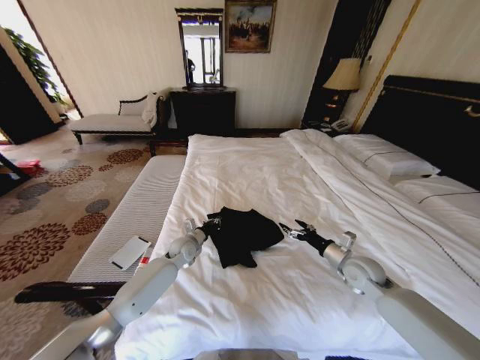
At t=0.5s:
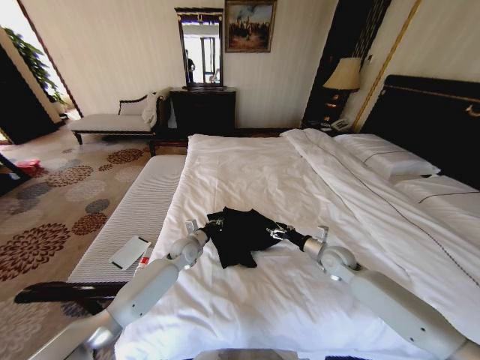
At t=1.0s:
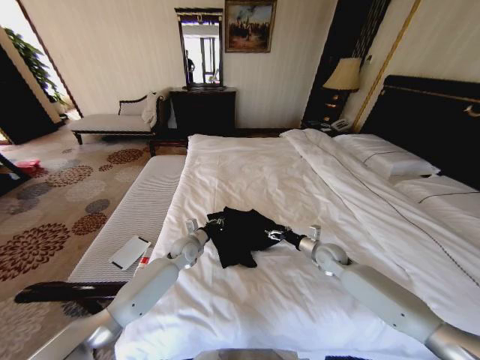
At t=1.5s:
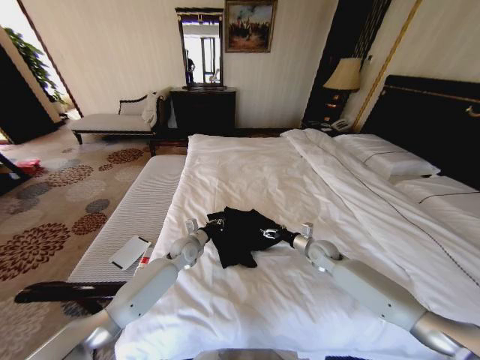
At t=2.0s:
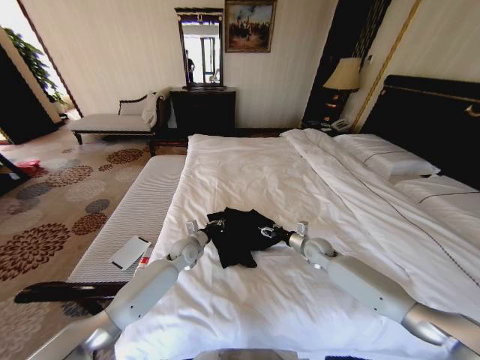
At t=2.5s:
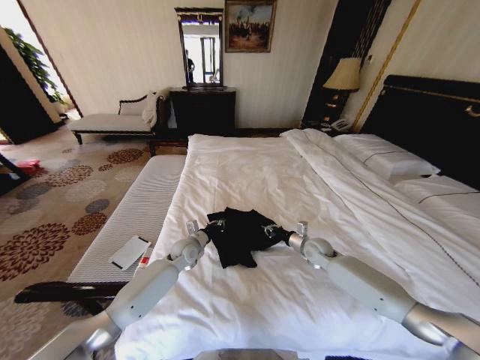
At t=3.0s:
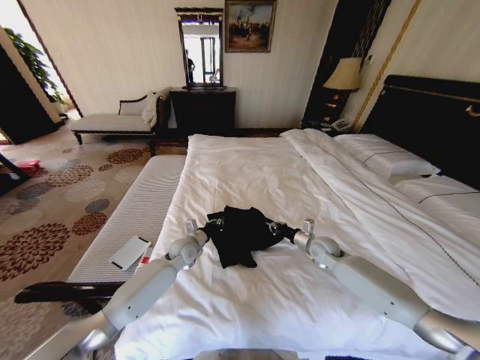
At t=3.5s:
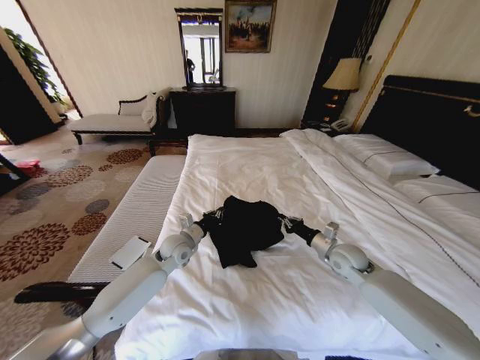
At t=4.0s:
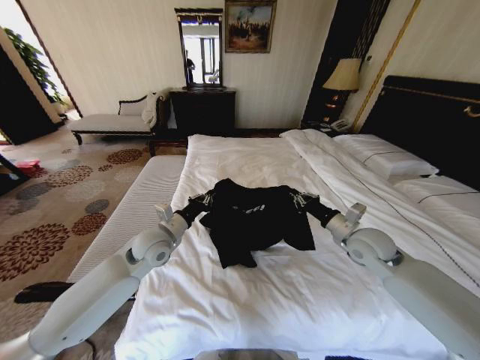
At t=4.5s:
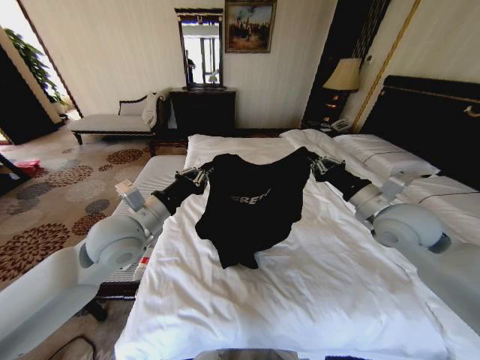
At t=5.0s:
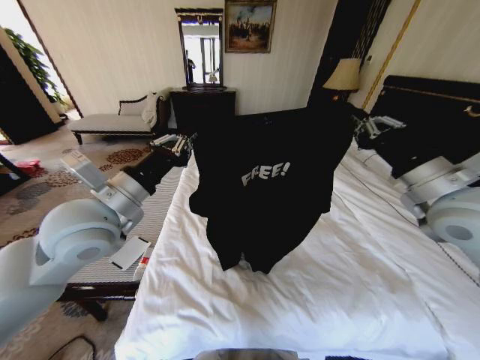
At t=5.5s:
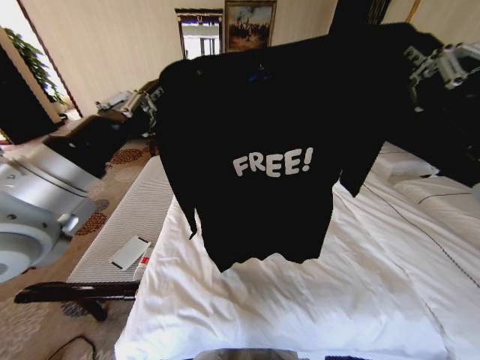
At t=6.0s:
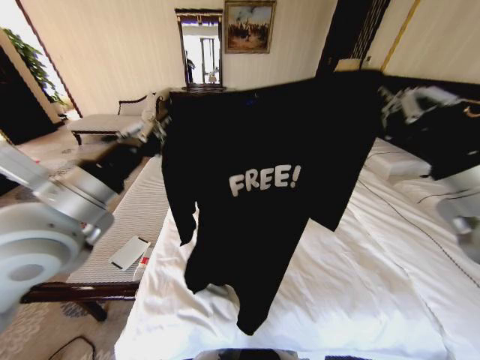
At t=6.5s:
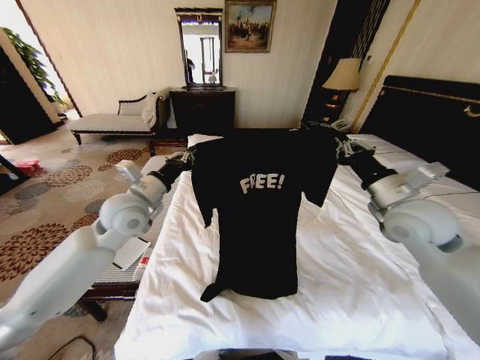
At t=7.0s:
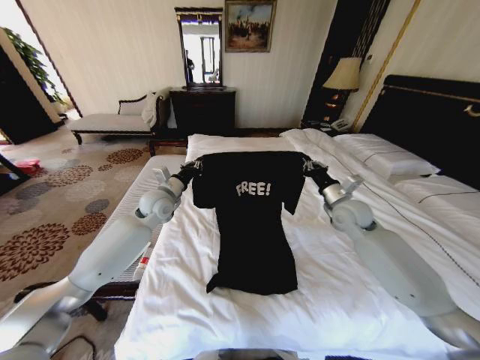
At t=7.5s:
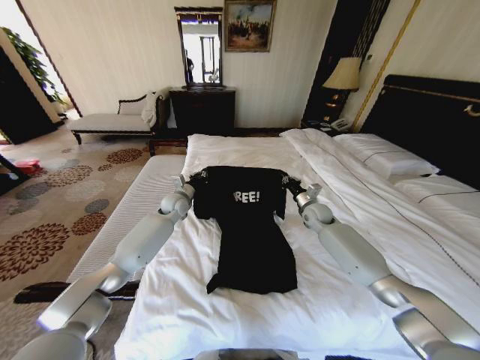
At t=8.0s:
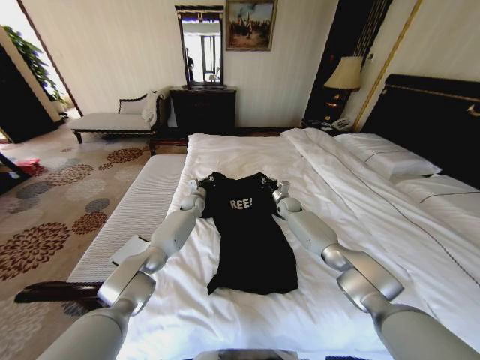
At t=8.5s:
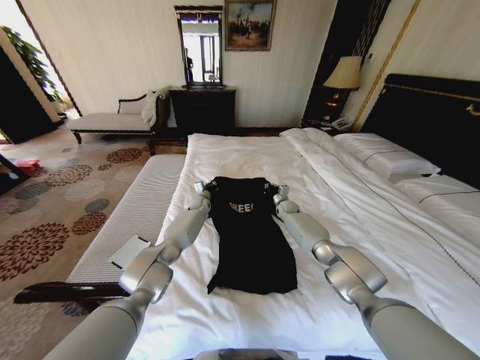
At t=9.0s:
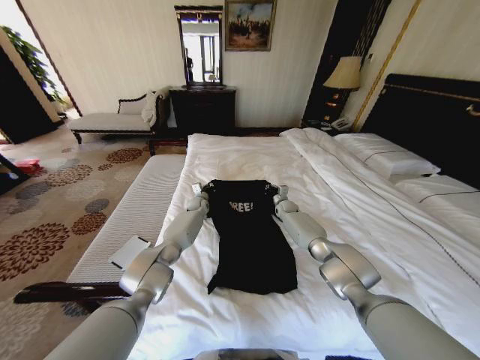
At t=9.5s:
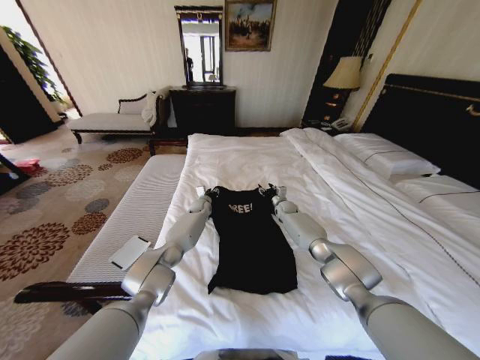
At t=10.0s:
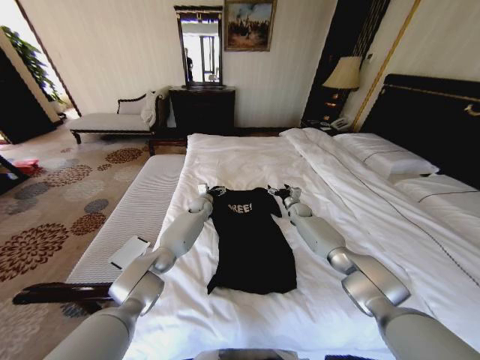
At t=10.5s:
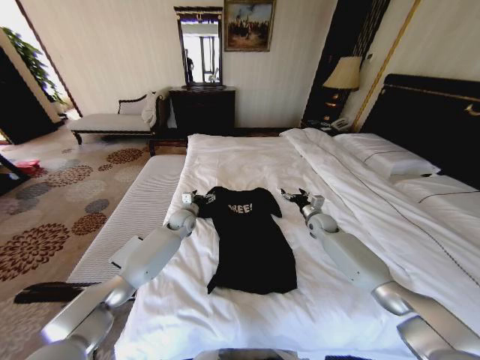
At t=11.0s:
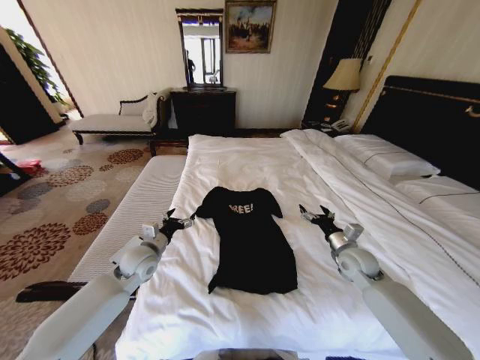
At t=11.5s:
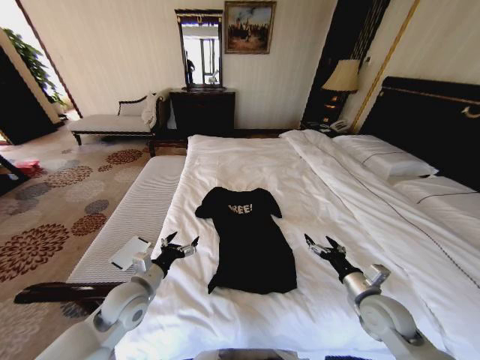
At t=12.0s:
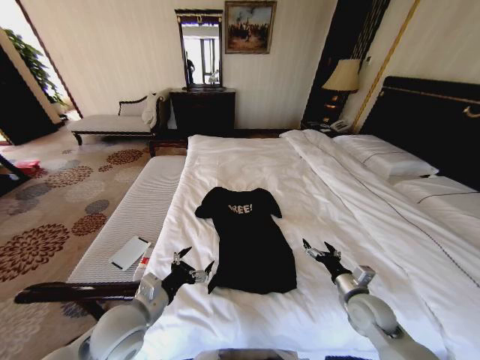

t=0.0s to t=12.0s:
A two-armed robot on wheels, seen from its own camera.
Task of the whole recording: Fold the clothes on the bed.
t=0.0s to t=2.0s: The right gripper shifts some 15 cm forward, downward and to the left.
t=2.0s to t=4.0s: Both grippers move upward and backward, about 20 cm. The right gripper closes its fingers.
t=4.0s to t=6.0s: Both grippers move upward and backward, about 25 cm.
t=6.0s to t=8.0s: The grippers both shift forward and downward by about 50 cm.
t=8.0s to t=10.0s: The right gripper moves to the right, some 5 cm, and opens up; the left gripper opens up.
t=10.0s to t=12.0s: Both grippers move backward, about 40 cm.

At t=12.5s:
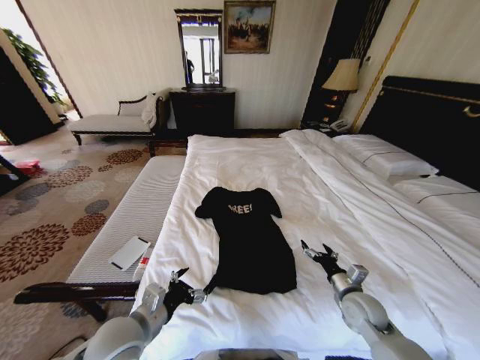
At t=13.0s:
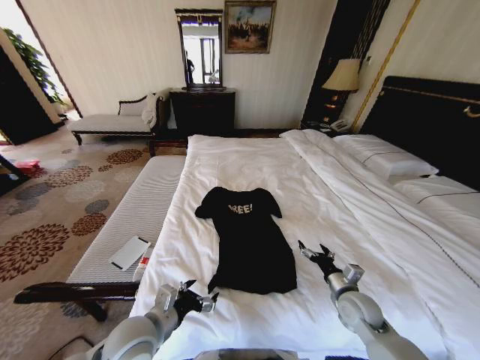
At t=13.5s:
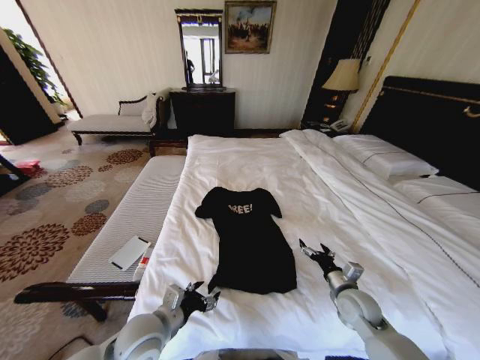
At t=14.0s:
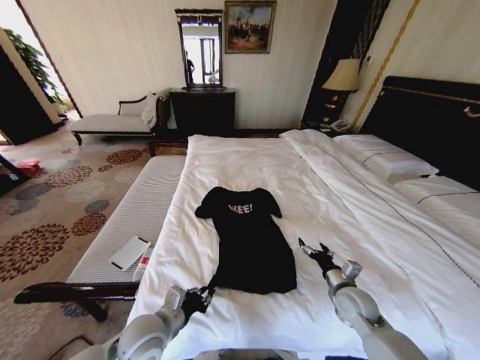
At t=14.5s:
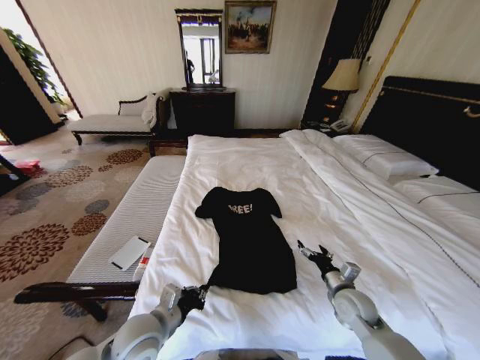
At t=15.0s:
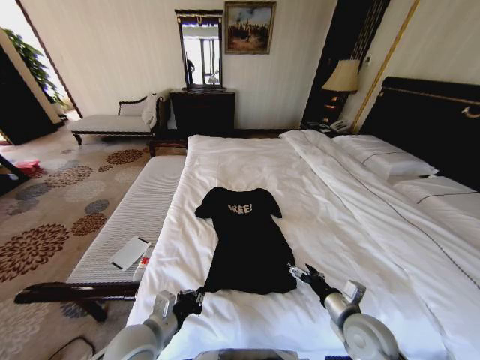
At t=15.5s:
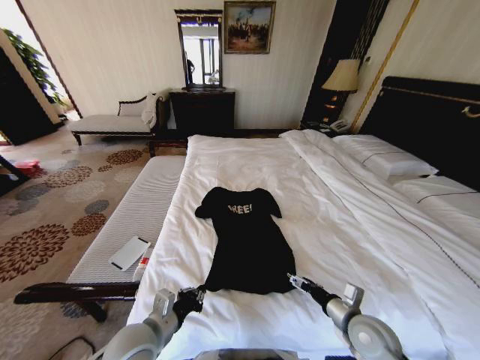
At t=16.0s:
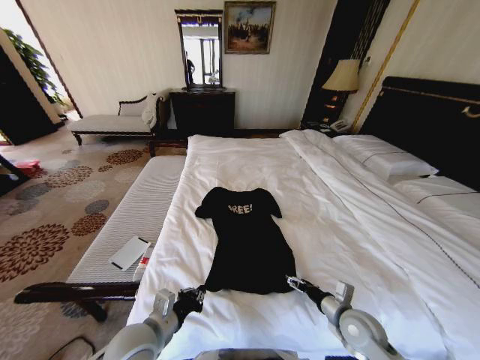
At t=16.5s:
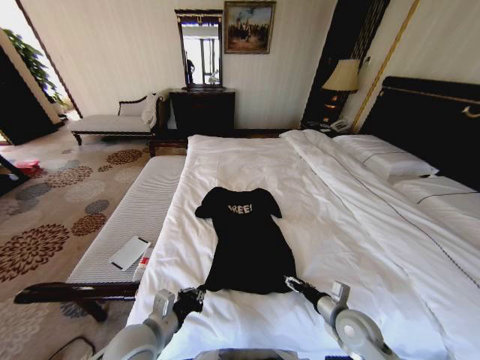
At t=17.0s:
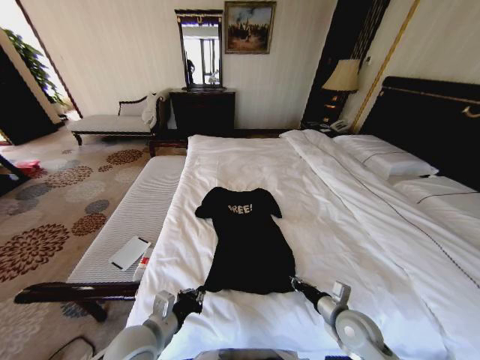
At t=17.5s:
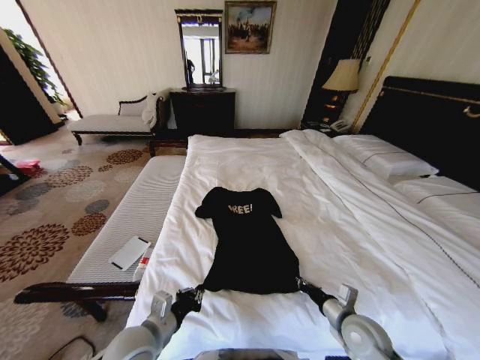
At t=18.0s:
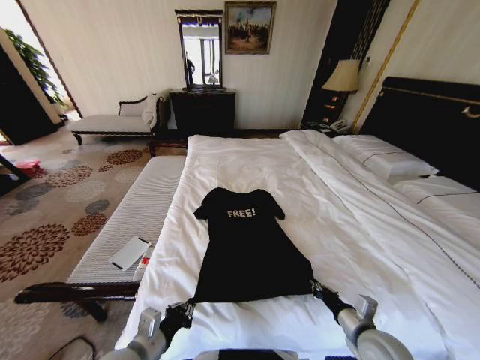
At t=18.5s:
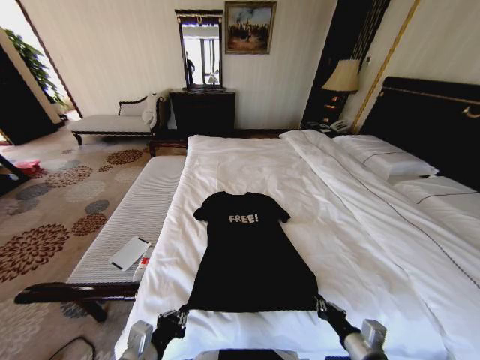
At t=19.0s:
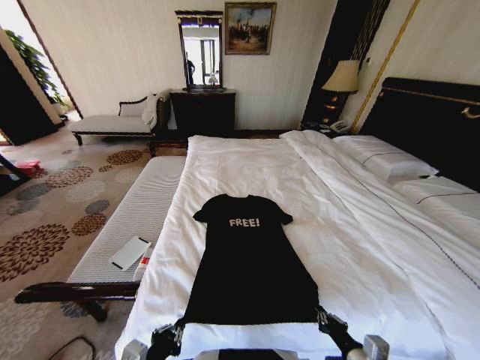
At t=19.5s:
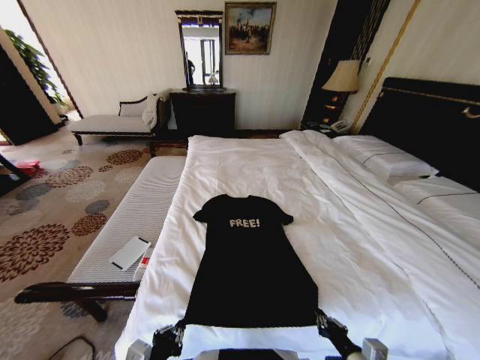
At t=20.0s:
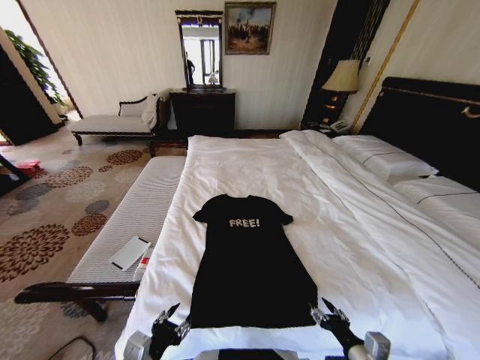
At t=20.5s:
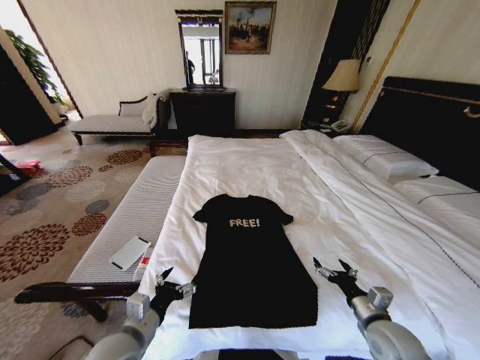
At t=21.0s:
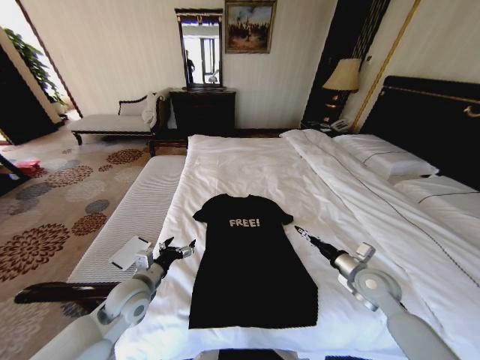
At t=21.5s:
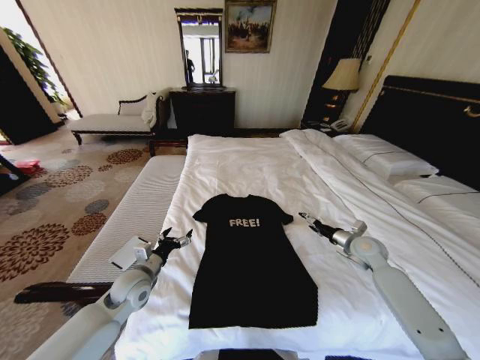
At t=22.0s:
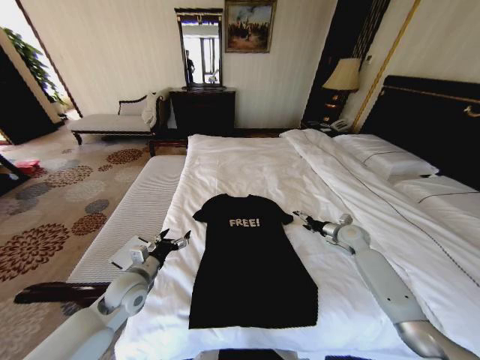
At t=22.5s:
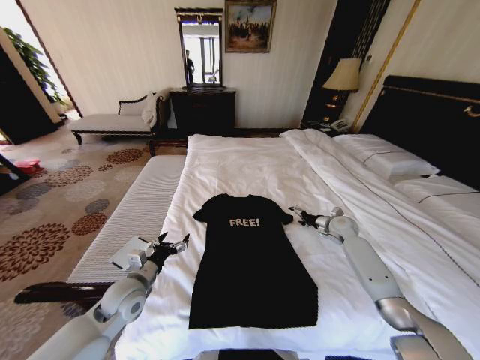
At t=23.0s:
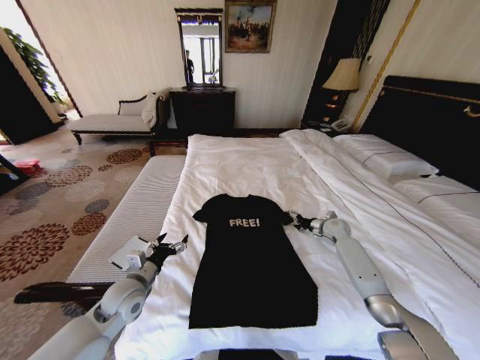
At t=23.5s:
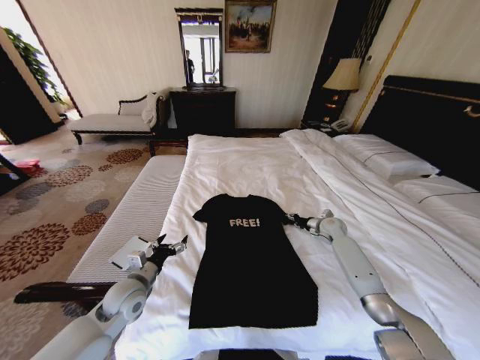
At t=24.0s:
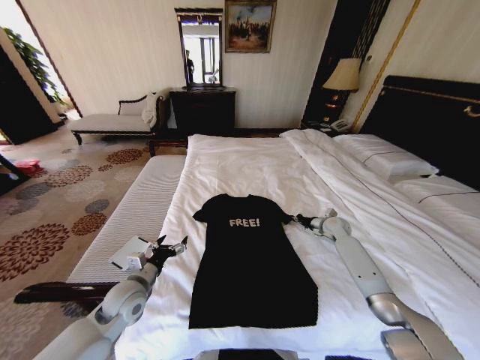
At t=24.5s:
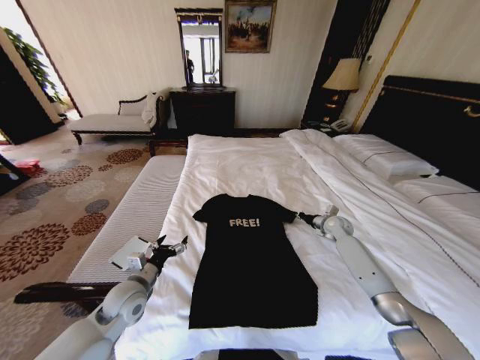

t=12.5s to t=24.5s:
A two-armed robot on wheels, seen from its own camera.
Task of the whole recording: Fold the clothes on the bed.
t=12.5s to t=14.5s: The left gripper closes up.
t=14.5s to t=16.5s: The right gripper shifts about 5 cm backward.
t=16.5s to t=18.5s: The left gripper moves backward, roughly 5 cm. The right gripper moves backward, roughly 10 cm, and closes up.
t=18.5s to t=20.5s: The left gripper opens its fingers. The right gripper heads forward, covering about 5 cm, and opens up.
t=20.5s to t=22.5s: The right gripper moves forward, about 35 cm, while the left gripper shifts approximately 10 cm forward.
t=22.5s to t=24.5s: The right gripper closes its fingers.

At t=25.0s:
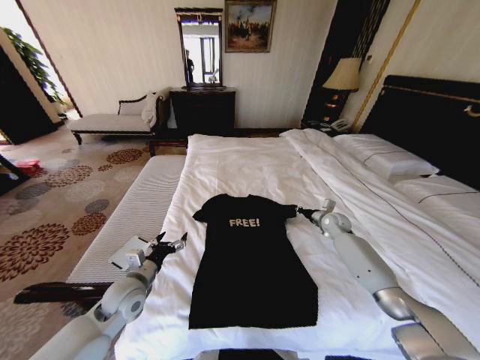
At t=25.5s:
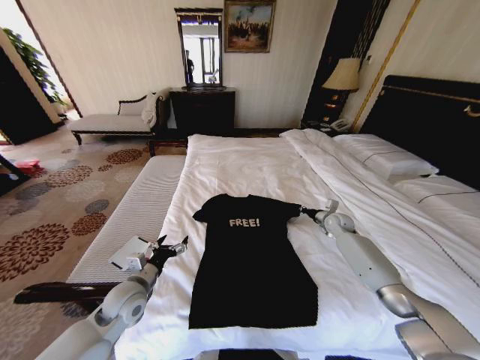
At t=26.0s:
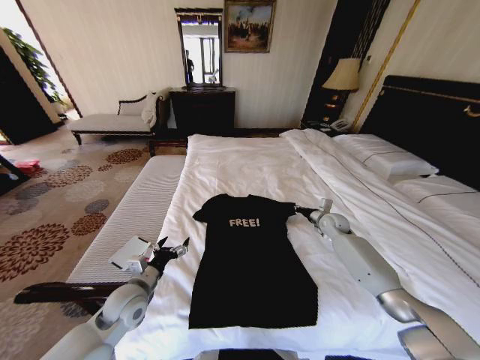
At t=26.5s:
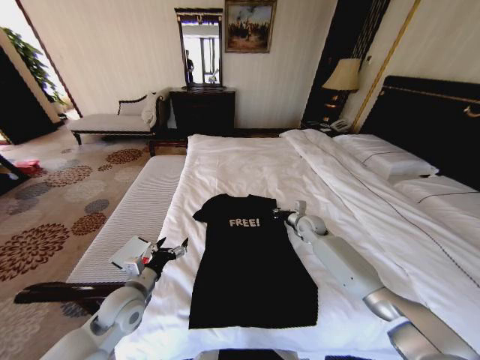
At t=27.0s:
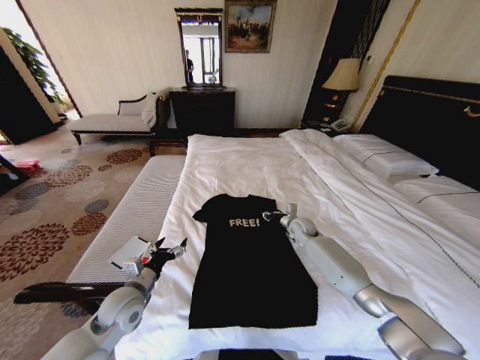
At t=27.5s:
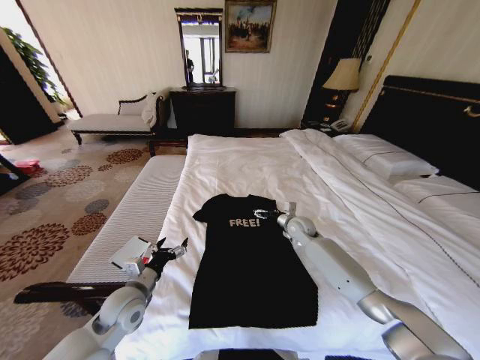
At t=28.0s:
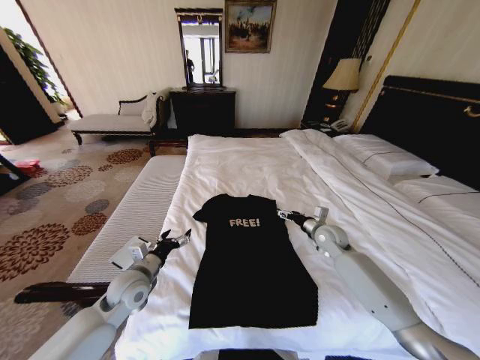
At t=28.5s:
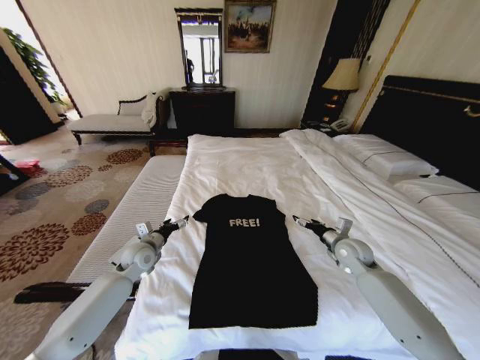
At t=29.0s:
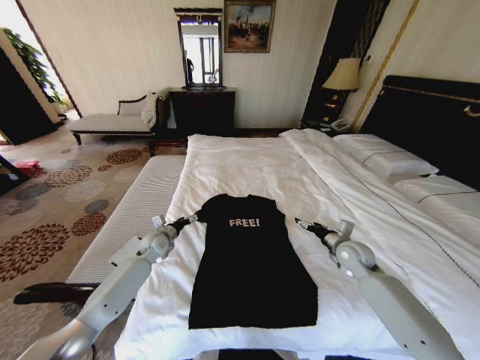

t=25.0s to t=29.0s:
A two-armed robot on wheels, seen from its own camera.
Task of the whole recording: Fold the clothes on the bed.
t=25.0s to t=27.0s: The right gripper moves to the left, approximately 15 cm, and opens up.
t=27.0s to t=29.0s: The left gripper shifts about 20 cm forward, while the right gripper moves backward and to the right, roughly 15 cm, and opens up.
